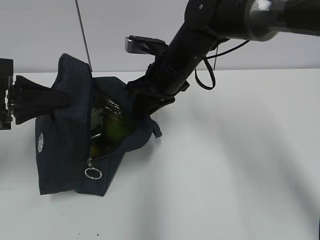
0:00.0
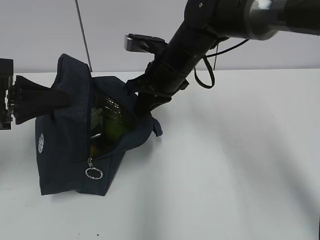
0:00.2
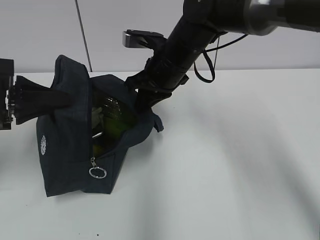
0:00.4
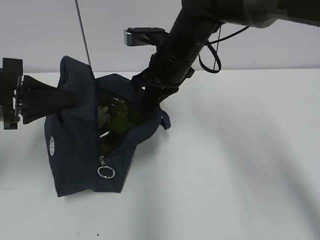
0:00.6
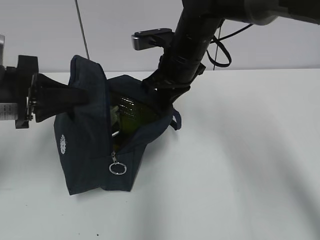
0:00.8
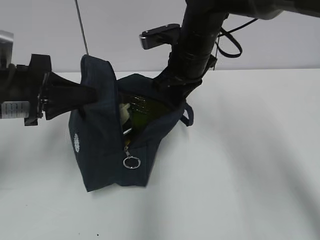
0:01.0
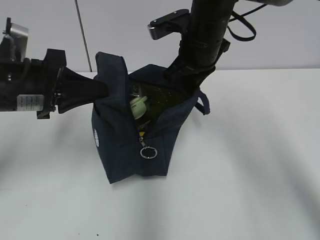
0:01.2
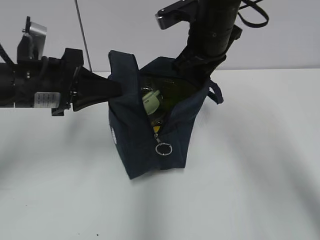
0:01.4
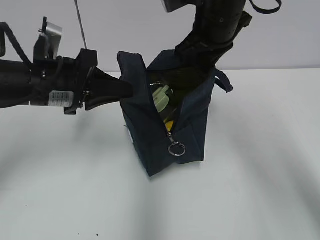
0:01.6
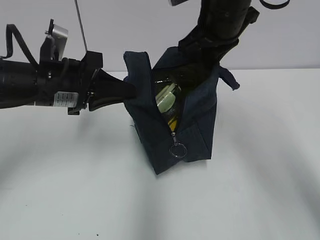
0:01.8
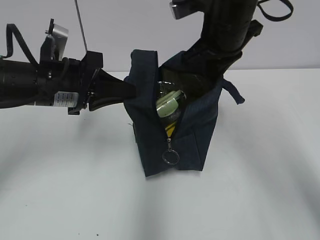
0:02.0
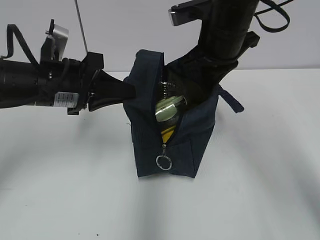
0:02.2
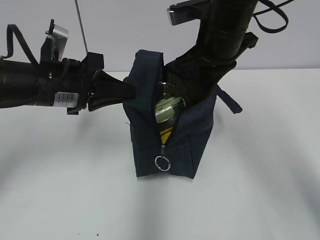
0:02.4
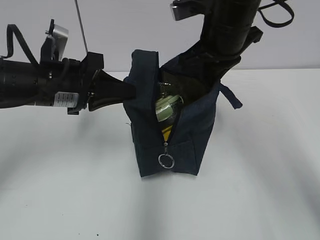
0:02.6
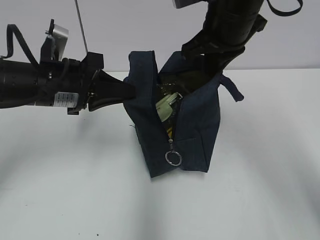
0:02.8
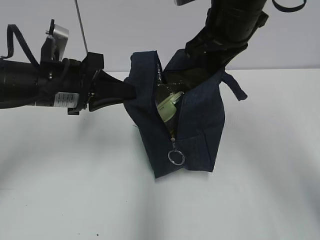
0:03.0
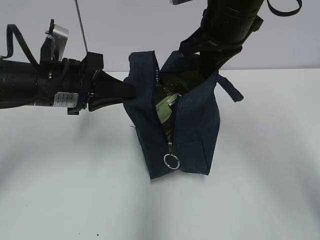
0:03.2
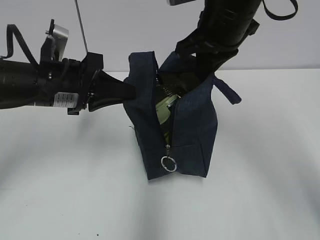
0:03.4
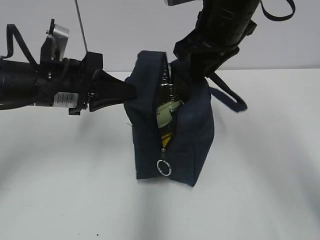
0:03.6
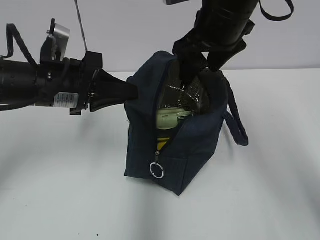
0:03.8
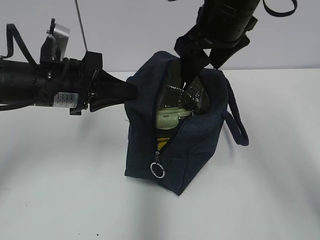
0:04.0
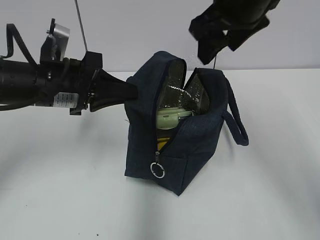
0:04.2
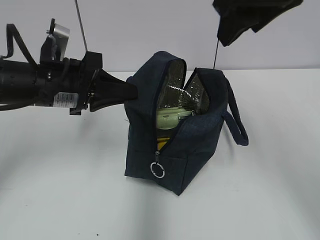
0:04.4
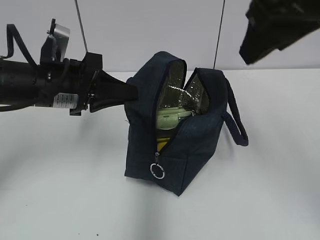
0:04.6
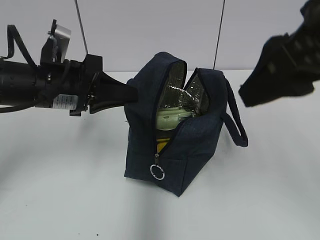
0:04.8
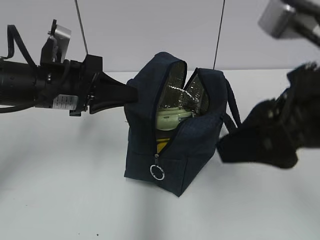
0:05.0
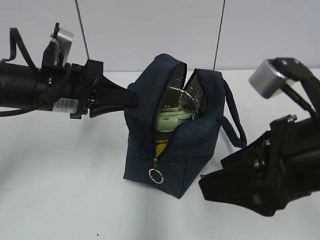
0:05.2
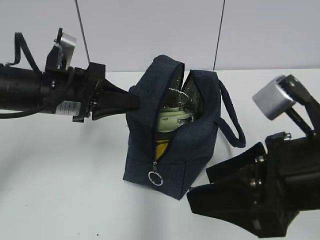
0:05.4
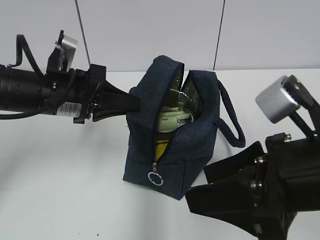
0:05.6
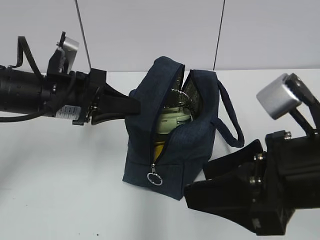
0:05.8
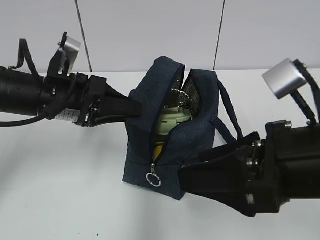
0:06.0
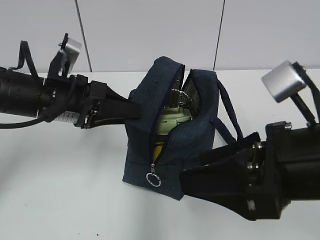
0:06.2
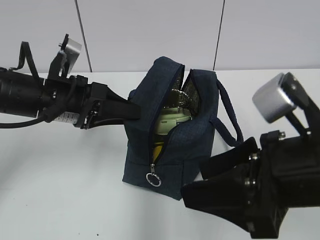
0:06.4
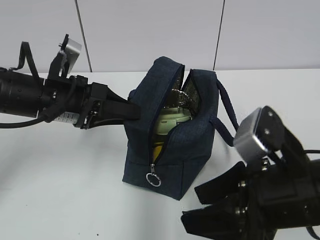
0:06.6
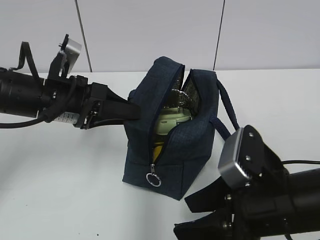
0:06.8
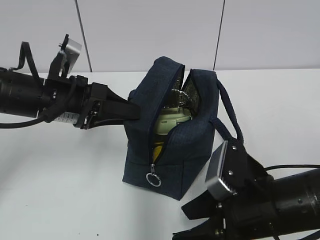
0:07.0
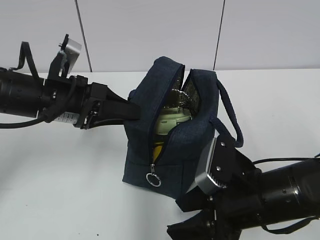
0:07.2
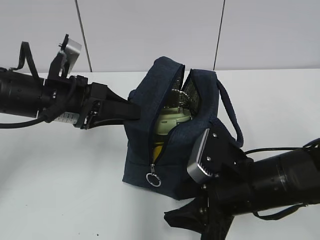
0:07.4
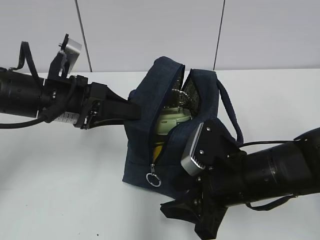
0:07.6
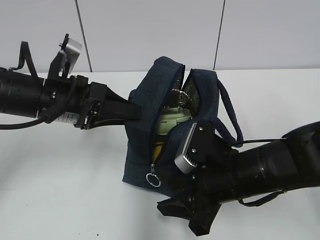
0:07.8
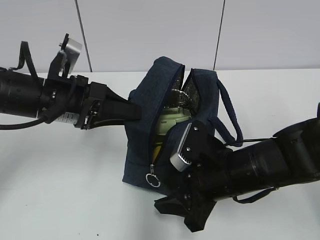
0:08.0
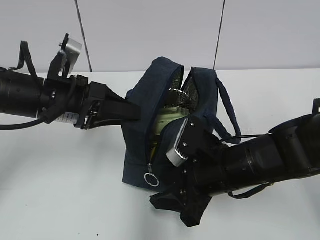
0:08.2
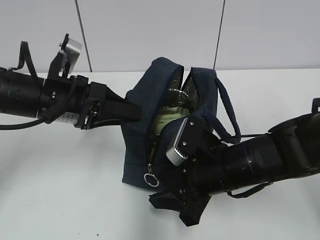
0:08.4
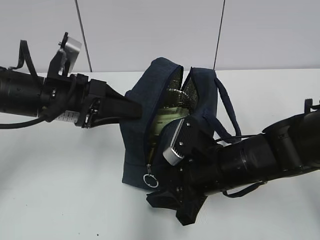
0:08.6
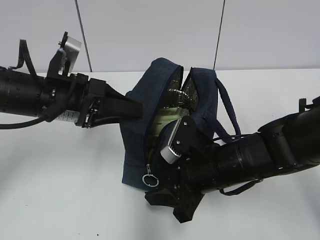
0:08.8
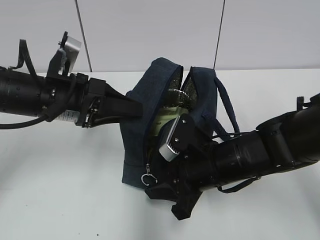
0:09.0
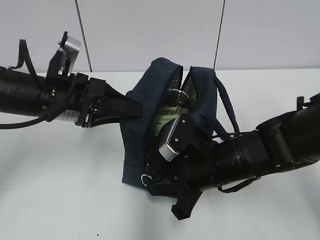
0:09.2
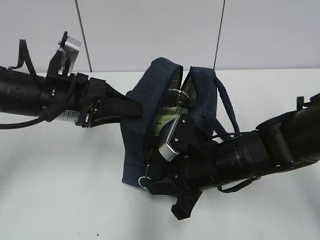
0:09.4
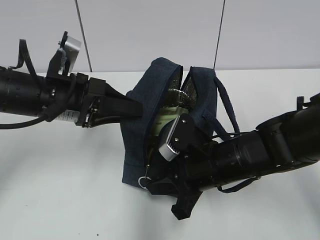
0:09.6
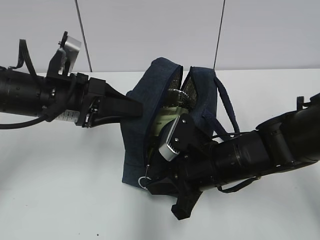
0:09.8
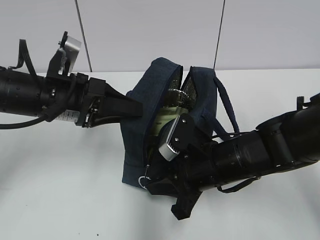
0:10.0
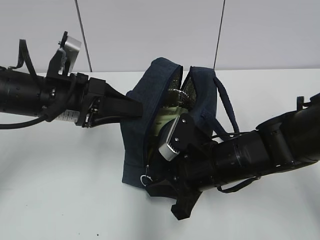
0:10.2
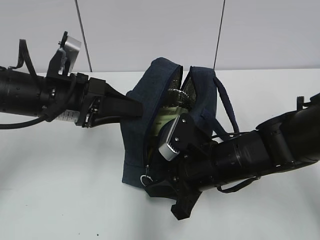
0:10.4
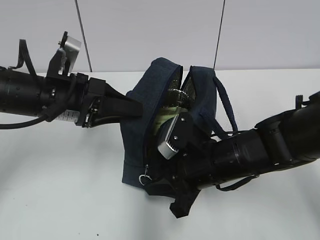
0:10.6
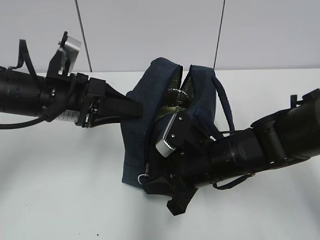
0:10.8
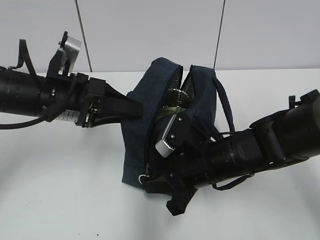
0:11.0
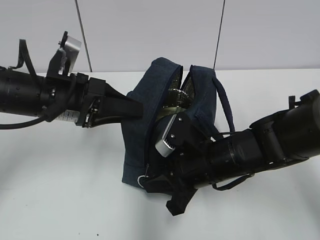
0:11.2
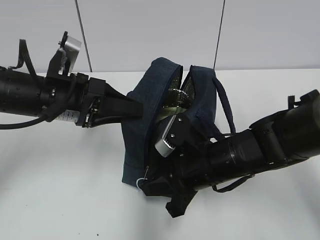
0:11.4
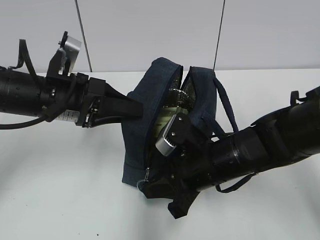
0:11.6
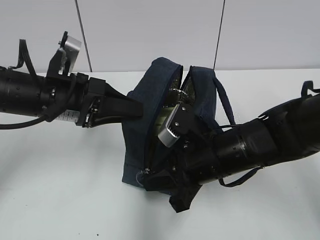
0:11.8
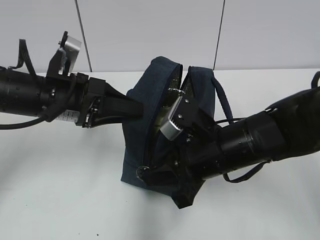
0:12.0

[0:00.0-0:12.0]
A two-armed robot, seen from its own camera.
0:00.0 to 0:01.6: The left gripper heads to the right, covering approximately 10 cm. The right gripper shifts approximately 10 cm upward and to the right.
0:01.6 to 0:03.0: The grippers move only a little.
0:03.0 to 0:04.4: The right gripper heads upward and backward, covering approximately 10 cm, and opens.
0:04.4 to 0:06.0: The left gripper opens. Meanwhile the right gripper goes approximately 20 cm backward and downward.
0:06.0 to 0:07.6: The right gripper moves downward and forward, roughly 15 cm.
0:07.6 to 0:09.0: The grippers stay close to where they were, moving slightly.
0:09.0 to 0:10.4: Both grippers stay put.
0:10.4 to 0:12.0: There are only small adjustments of the grippers.

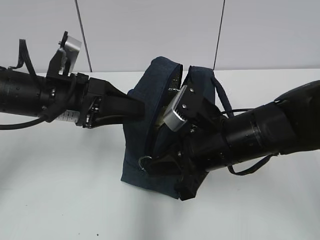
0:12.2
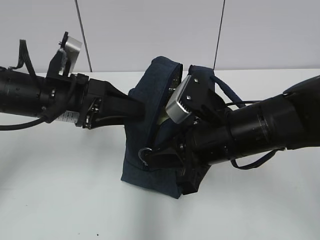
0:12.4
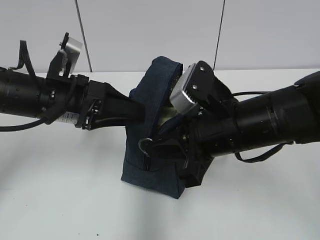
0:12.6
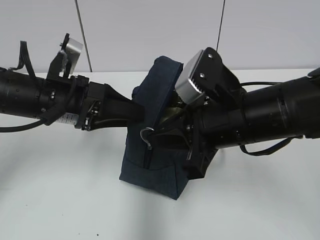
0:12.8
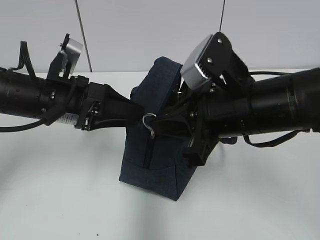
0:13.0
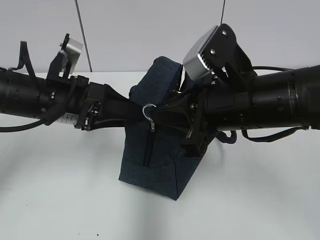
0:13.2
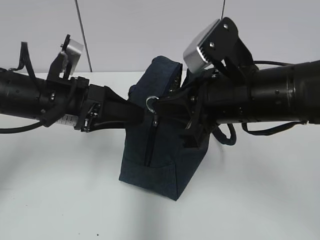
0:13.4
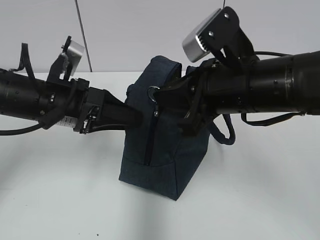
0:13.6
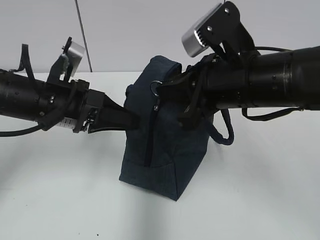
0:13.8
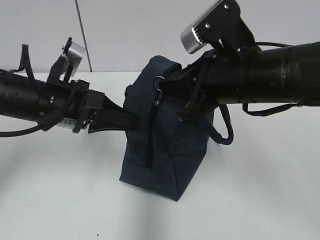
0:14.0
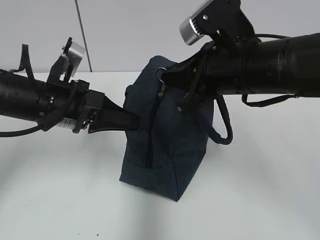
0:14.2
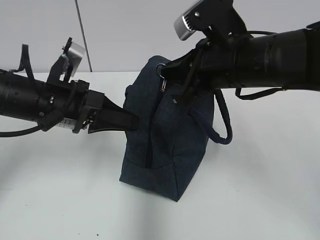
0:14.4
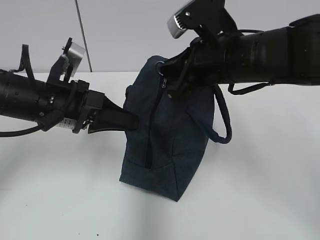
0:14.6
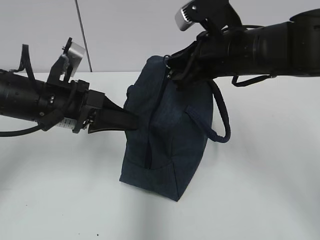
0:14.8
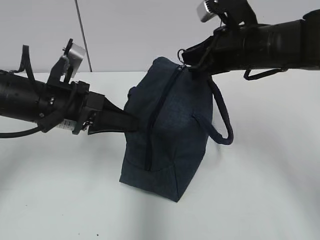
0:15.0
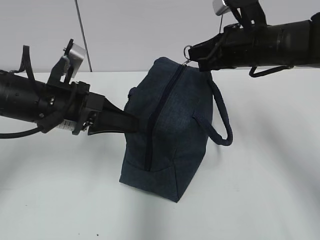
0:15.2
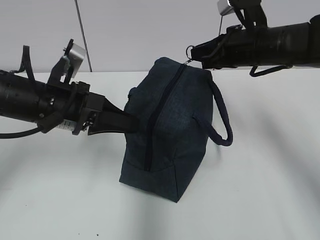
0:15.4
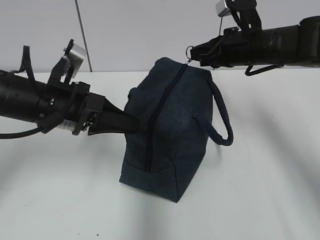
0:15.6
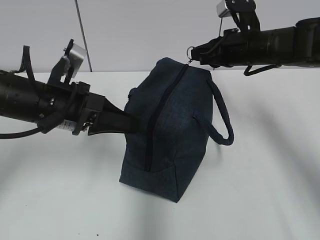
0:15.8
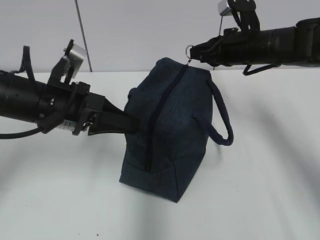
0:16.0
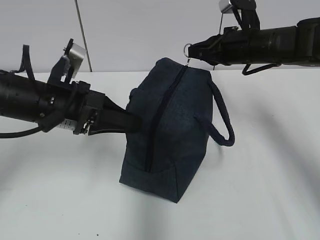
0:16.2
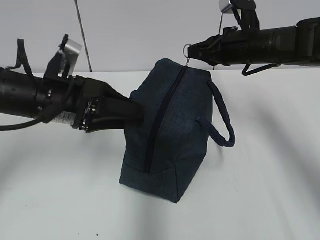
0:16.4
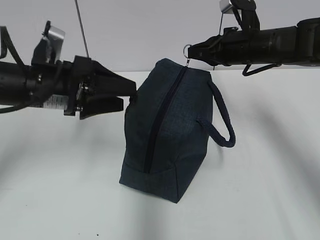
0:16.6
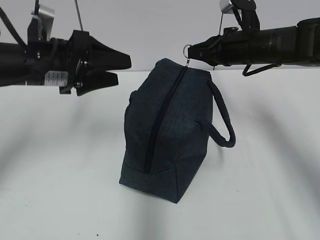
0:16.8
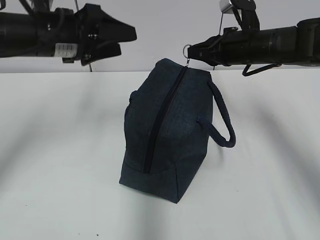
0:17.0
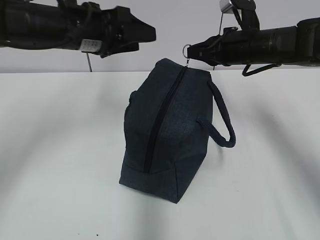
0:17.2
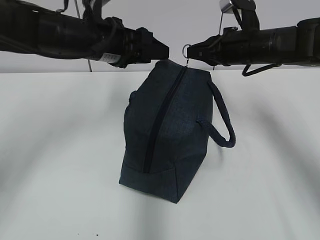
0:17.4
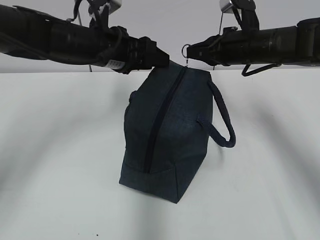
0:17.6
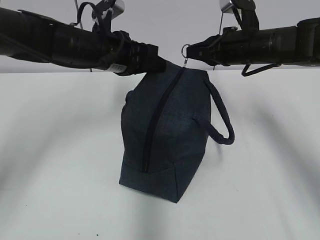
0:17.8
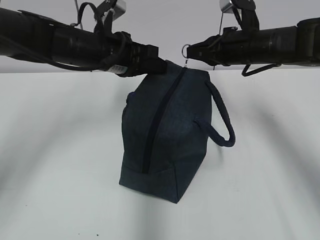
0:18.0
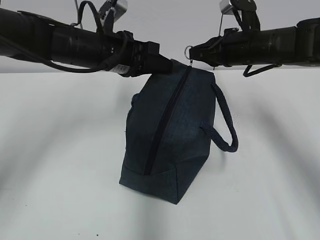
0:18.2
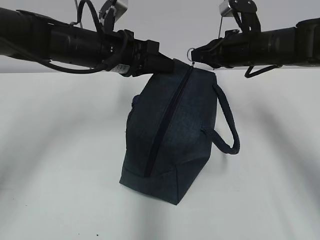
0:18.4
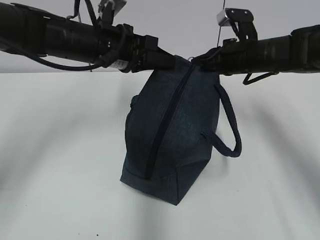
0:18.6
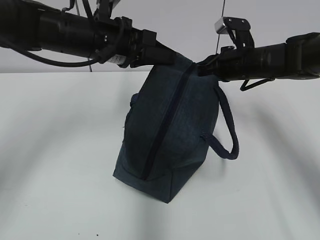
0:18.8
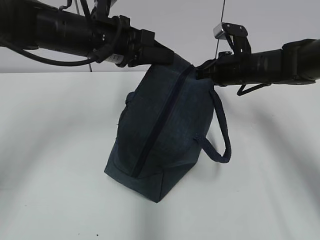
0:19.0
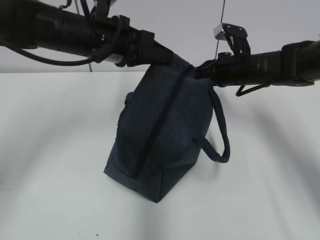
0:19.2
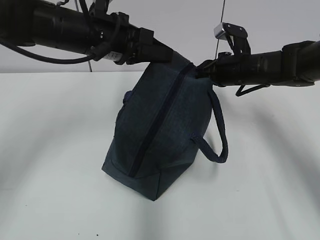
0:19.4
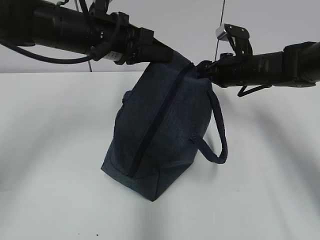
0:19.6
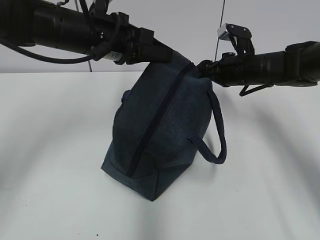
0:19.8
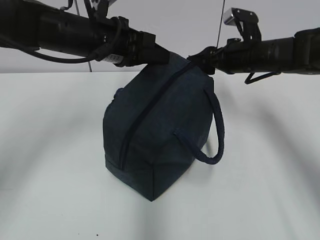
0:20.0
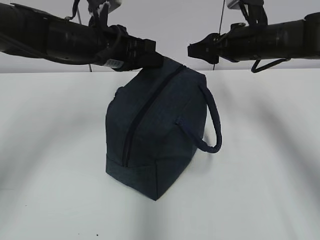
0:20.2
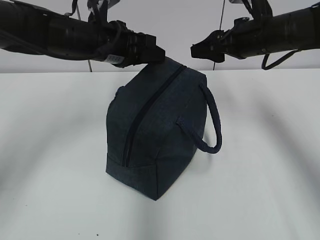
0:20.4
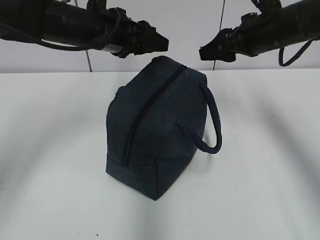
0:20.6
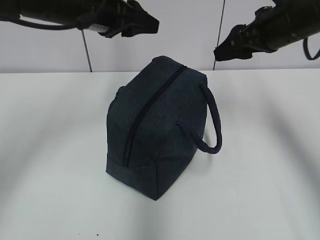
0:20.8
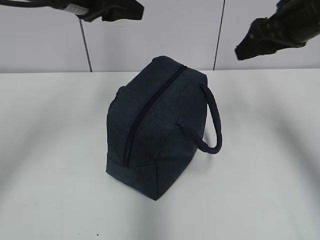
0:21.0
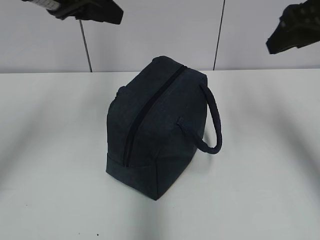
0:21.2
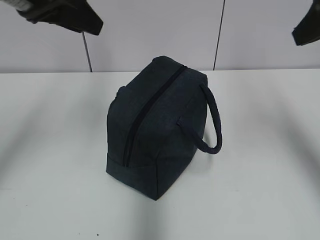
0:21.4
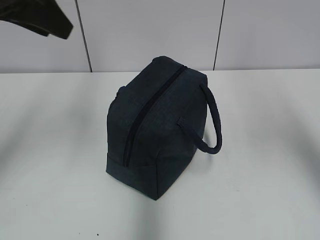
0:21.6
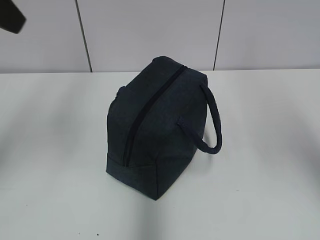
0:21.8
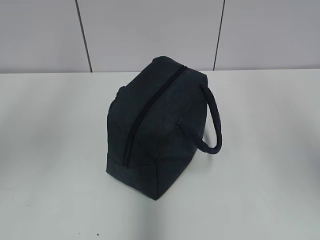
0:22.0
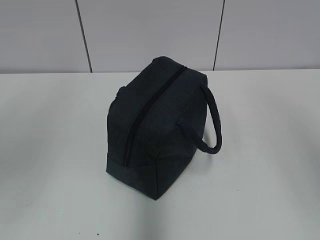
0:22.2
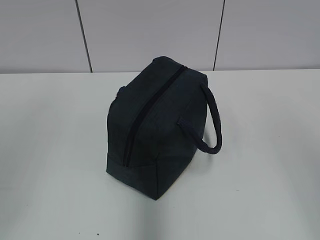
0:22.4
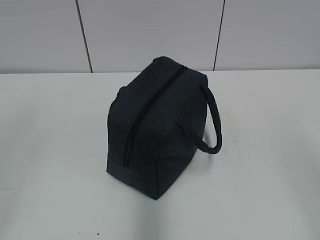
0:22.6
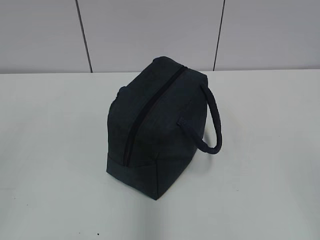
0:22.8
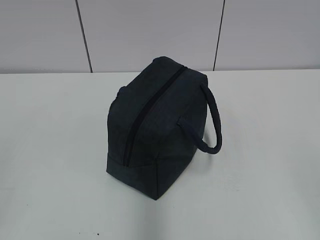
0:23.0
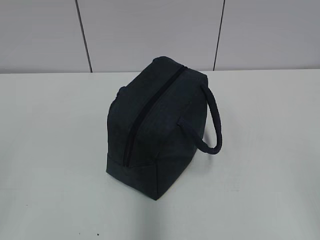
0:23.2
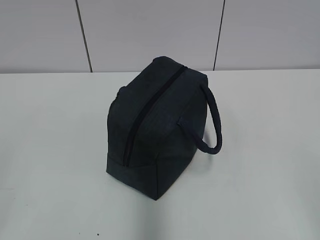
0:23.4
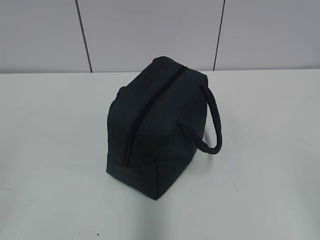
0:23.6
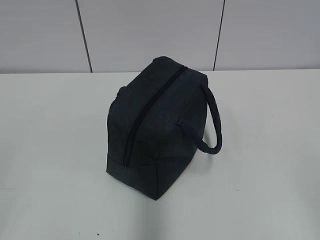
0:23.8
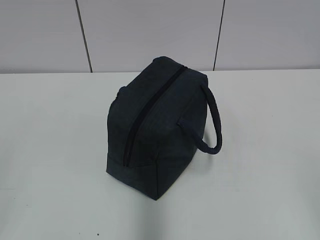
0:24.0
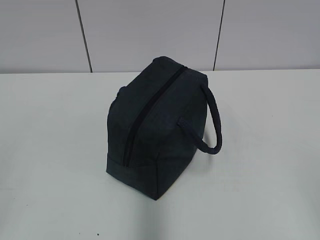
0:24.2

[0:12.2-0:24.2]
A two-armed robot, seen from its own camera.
0:12.2 to 0:13.8: The left gripper closes, while the right gripper is displaced upward by roughly 10 cm.
0:13.8 to 0:15.2: The right gripper moves forward and to the right, approximately 15 cm.
0:15.2 to 0:16.6: The left gripper opens up. The right gripper travels forward by approximately 5 cm.
0:16.6 to 0:18.2: The left gripper travels forward and to the right by some 10 cm, and closes.
0:18.2 to 0:19.8: The right gripper moves downward, some 5 cm, and opens.
0:19.8 to 0:21.2: The left gripper moves upward and to the left, about 10 cm, and opens. The right gripper goes some 25 cm upward and backward.
0:21.2 to 0:22.6: The left gripper moves backward and to the left, about 35 cm. Meanwhile the right gripper travels backward by some 30 cm.
